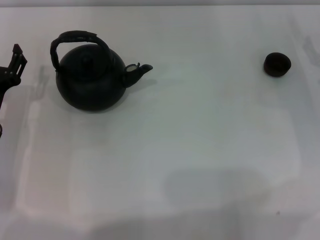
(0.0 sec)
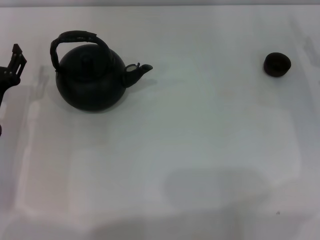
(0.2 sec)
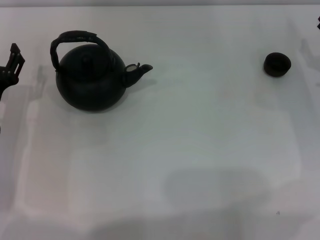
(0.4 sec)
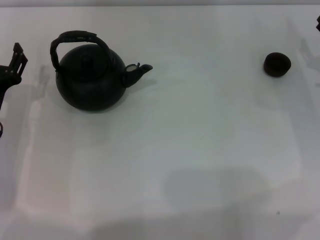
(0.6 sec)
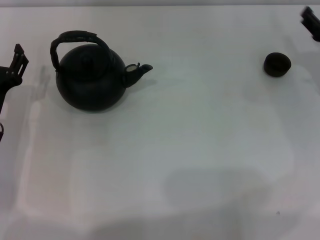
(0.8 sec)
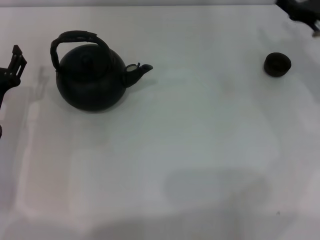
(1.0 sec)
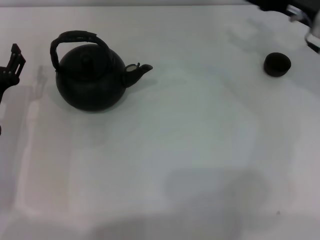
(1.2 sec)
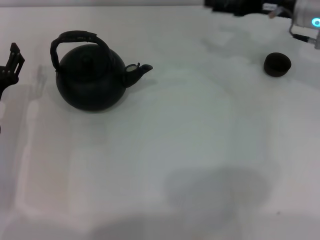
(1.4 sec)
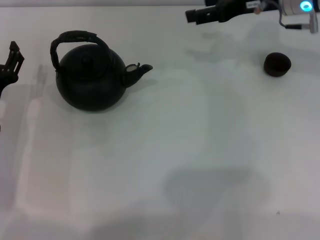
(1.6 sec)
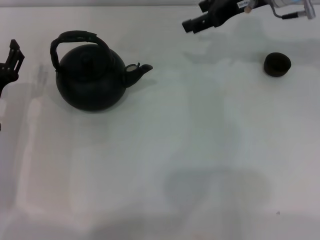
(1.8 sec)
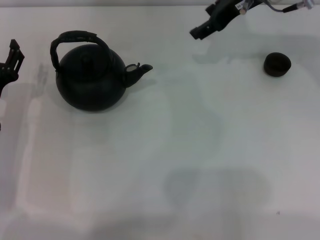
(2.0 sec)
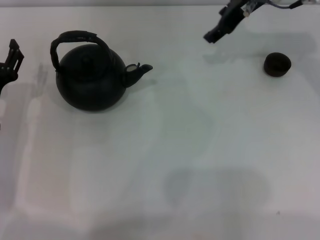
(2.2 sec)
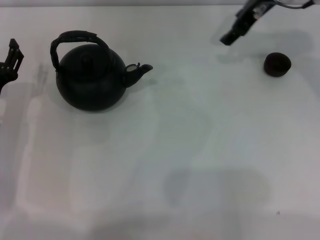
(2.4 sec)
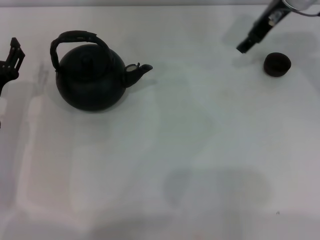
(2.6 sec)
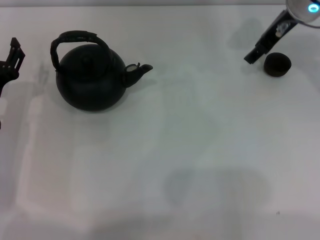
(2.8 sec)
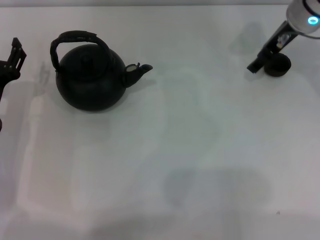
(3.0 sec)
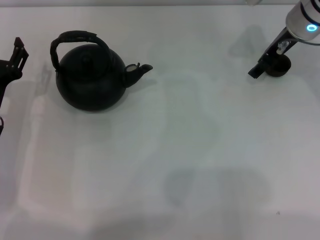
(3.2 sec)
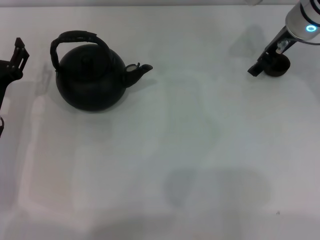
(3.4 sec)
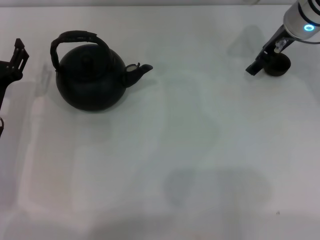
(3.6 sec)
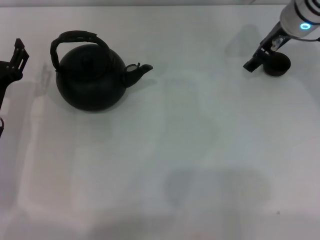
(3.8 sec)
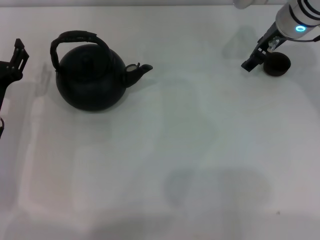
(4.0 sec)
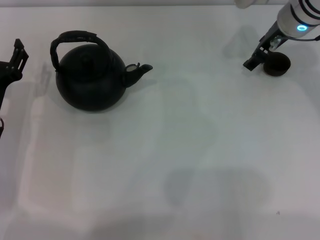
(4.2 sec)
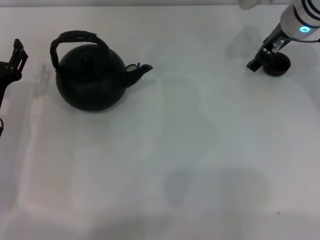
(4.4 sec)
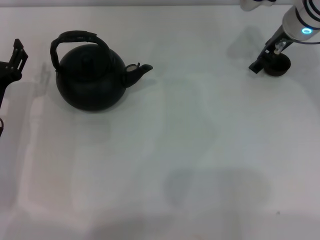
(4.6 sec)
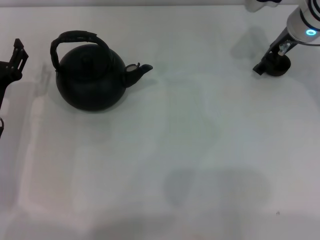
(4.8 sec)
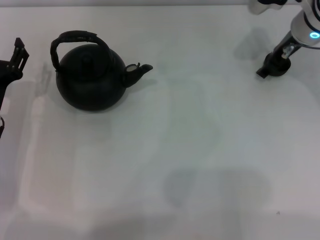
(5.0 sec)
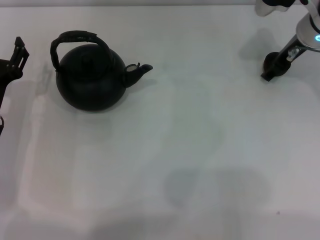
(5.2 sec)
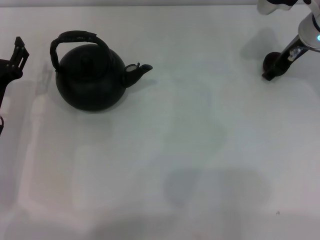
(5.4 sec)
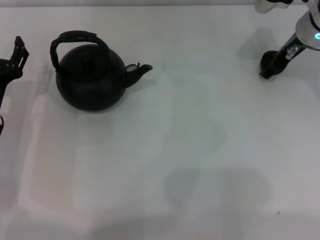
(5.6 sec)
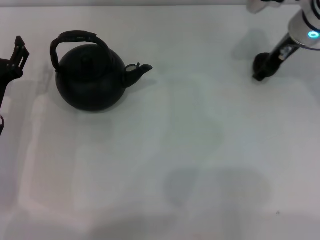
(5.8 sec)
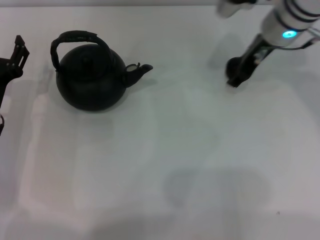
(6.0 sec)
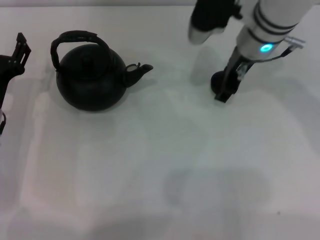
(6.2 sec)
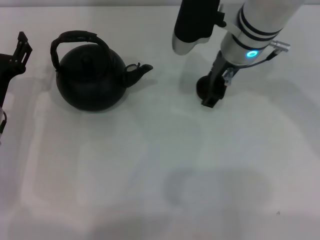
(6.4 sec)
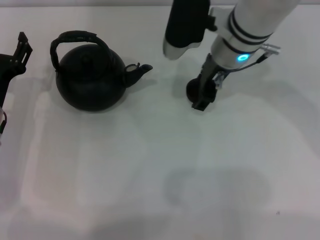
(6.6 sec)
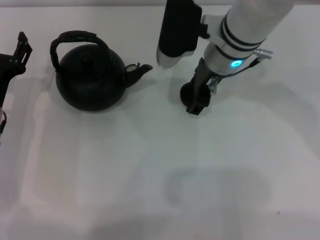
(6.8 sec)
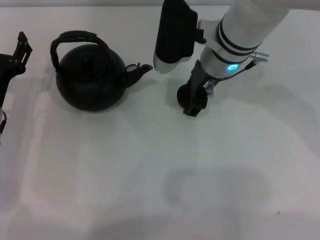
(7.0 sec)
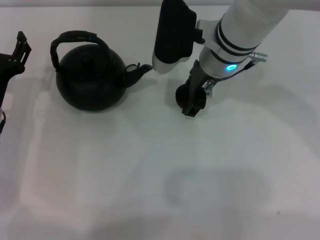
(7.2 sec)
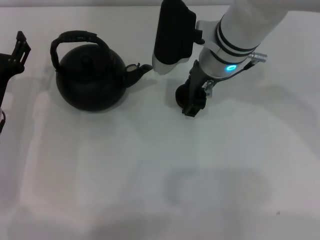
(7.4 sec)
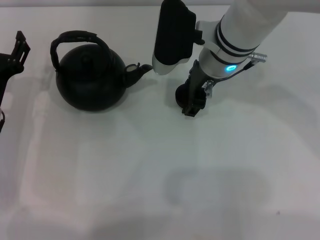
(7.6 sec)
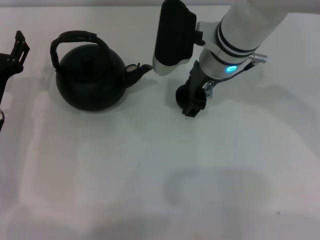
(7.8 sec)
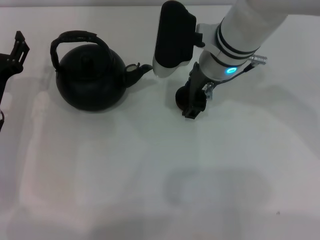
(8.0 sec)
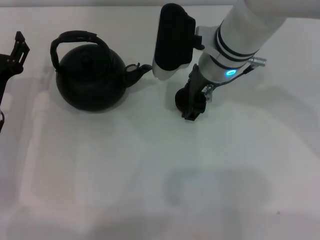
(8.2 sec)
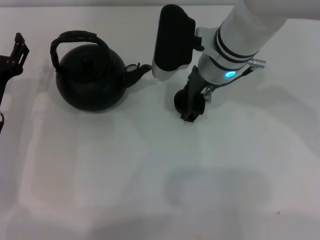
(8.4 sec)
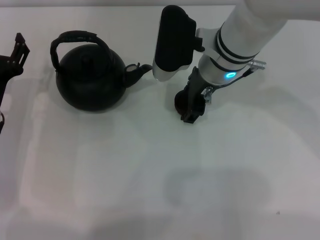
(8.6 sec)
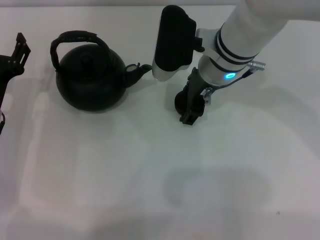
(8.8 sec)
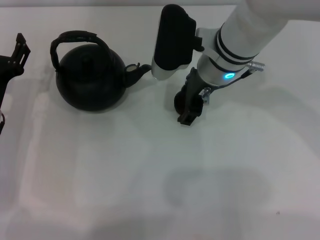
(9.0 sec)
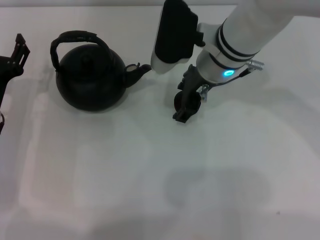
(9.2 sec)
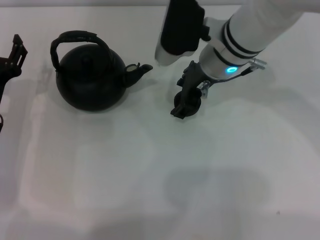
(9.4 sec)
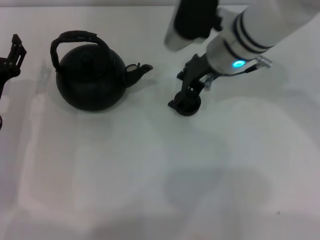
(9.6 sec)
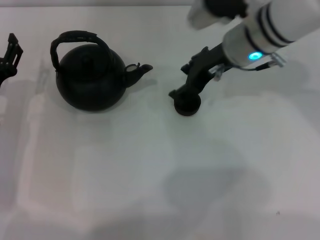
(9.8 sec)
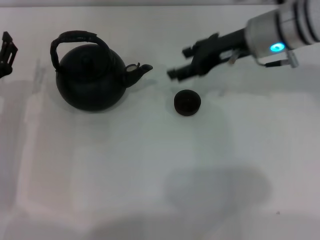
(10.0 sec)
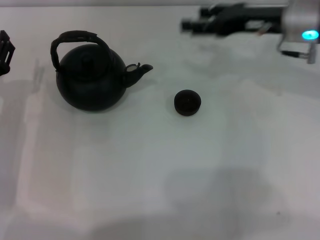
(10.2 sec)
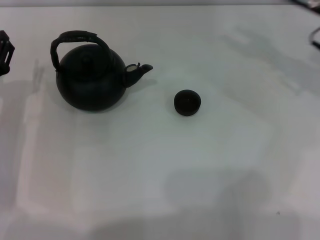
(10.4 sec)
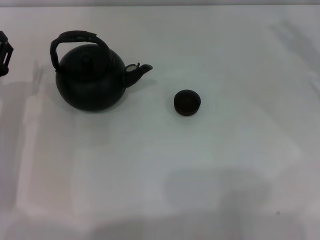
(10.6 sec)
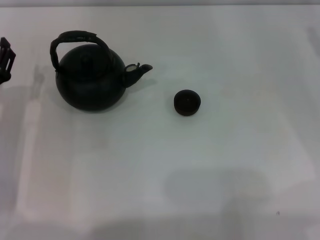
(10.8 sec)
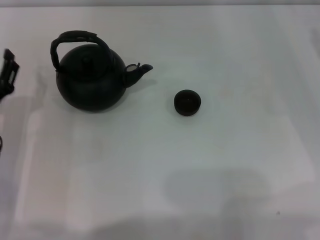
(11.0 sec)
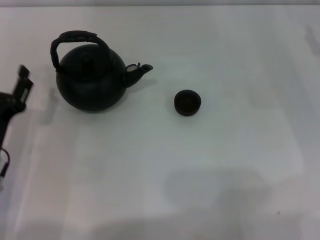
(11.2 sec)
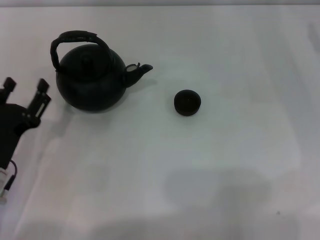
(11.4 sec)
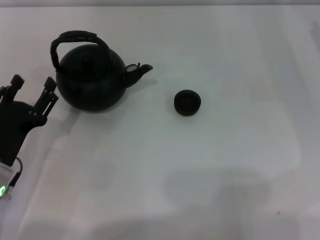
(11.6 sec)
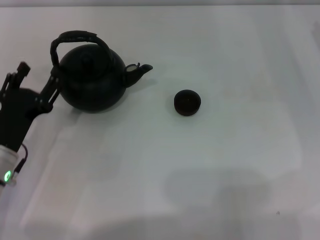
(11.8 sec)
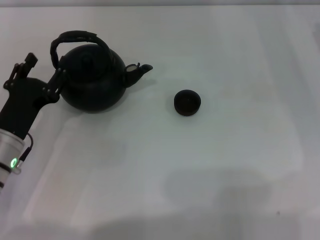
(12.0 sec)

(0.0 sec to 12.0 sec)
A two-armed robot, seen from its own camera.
Task of the whole recording: Grasp the handle of the teapot with one hand and pour tea into the teacup.
Step, 0.0 sec - 5.8 sec: Pick up the teacup with the right gripper.
Step, 6.0 sec - 10.0 sec: Place the teacup in the center of view with the right gripper.
0.0 sec - 1.6 sec: The right gripper moves upward, to the left and forward, roughly 20 cm.
3.0 sec - 4.4 sec: There are only small adjustments of the grippers.
4.4 sec - 6.0 sec: The right gripper changes place by some 5 cm.
6.0 sec - 7.6 sec: The right gripper shifts about 10 cm to the left.
7.6 sec - 9.0 sec: Both grippers stay put.
9.0 sec - 10.4 sec: The right gripper is displaced to the right by about 20 cm.

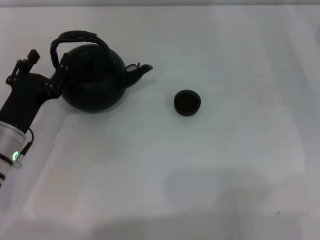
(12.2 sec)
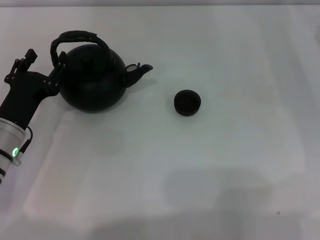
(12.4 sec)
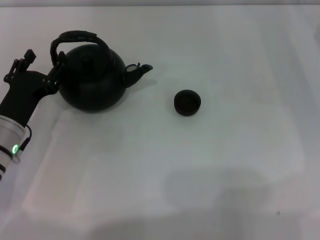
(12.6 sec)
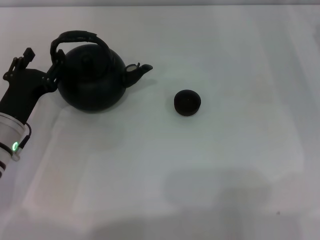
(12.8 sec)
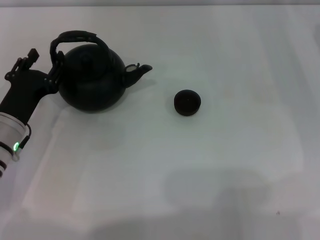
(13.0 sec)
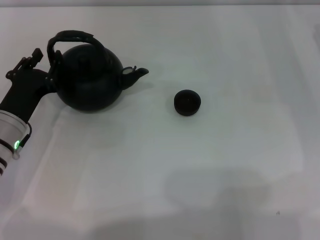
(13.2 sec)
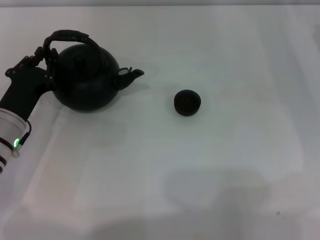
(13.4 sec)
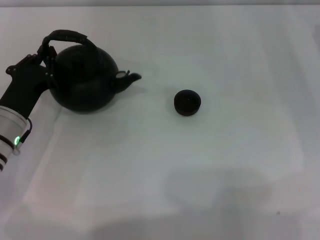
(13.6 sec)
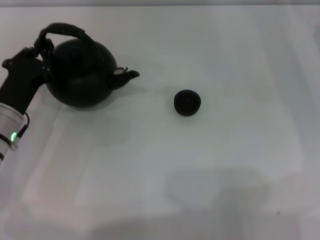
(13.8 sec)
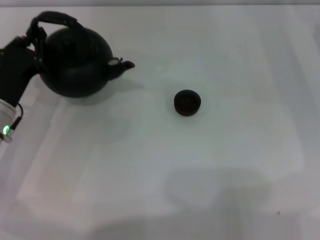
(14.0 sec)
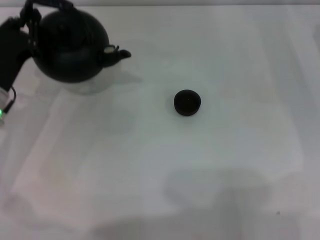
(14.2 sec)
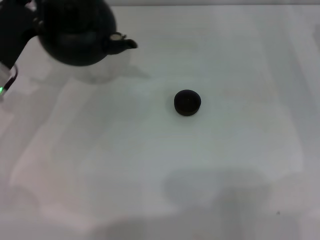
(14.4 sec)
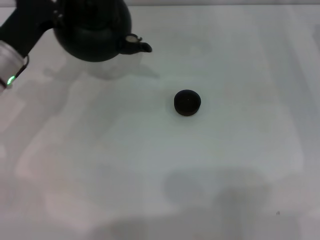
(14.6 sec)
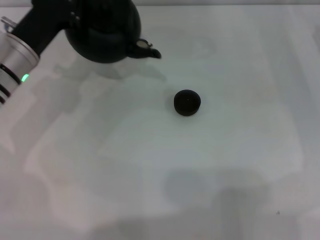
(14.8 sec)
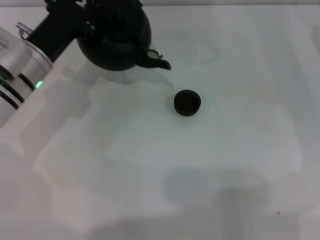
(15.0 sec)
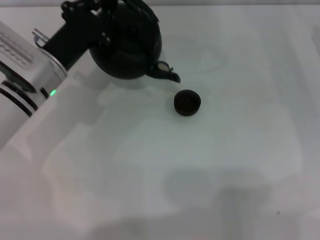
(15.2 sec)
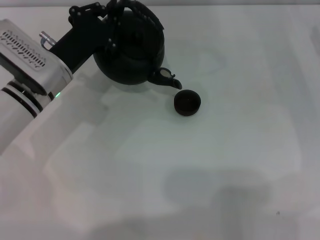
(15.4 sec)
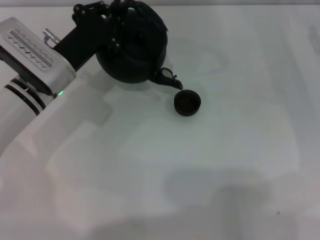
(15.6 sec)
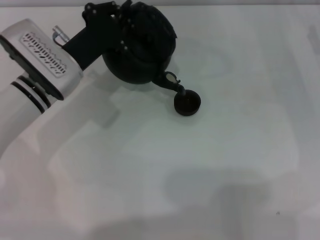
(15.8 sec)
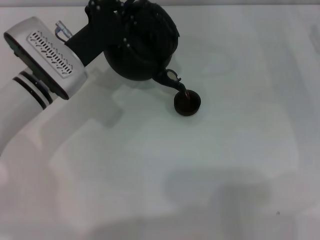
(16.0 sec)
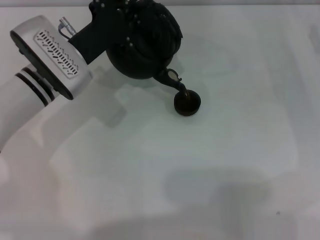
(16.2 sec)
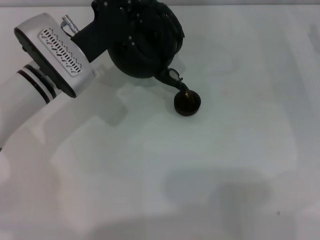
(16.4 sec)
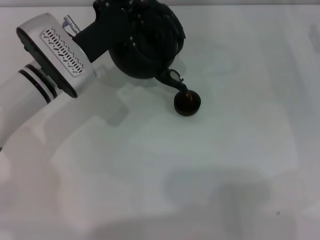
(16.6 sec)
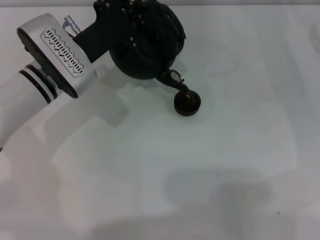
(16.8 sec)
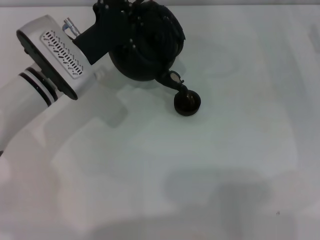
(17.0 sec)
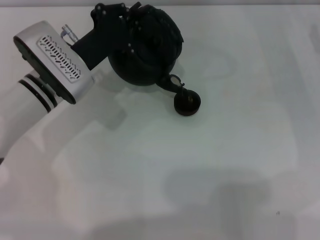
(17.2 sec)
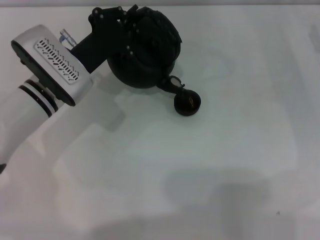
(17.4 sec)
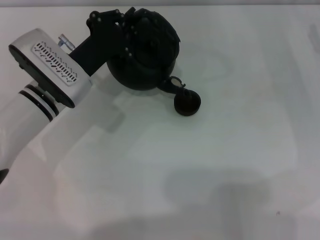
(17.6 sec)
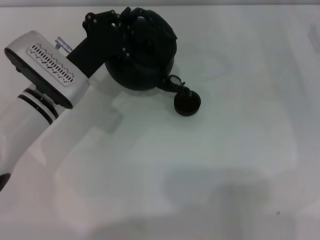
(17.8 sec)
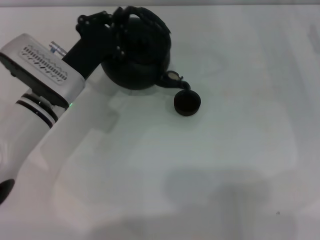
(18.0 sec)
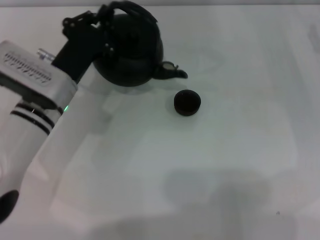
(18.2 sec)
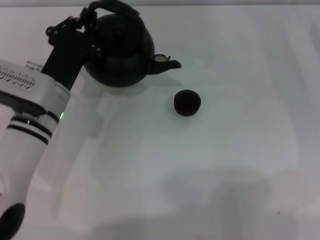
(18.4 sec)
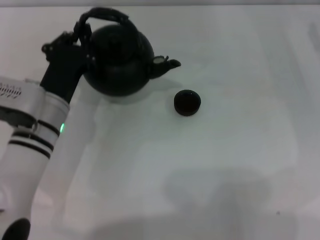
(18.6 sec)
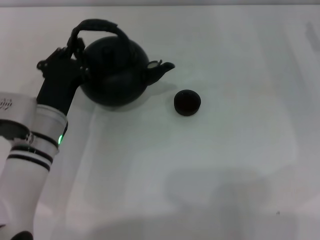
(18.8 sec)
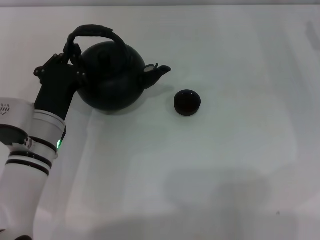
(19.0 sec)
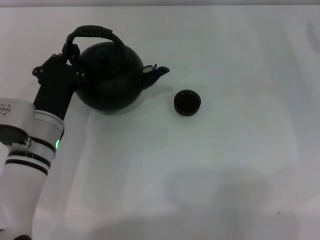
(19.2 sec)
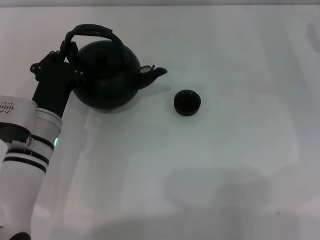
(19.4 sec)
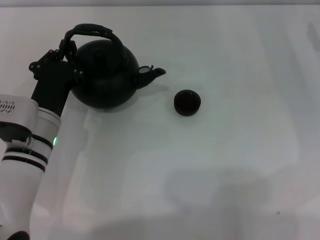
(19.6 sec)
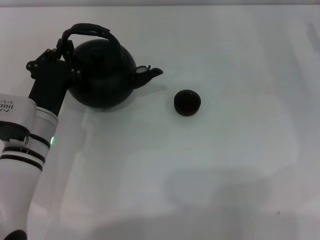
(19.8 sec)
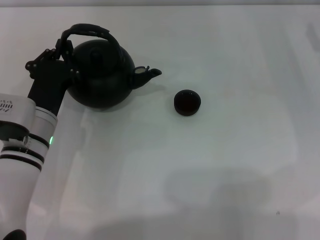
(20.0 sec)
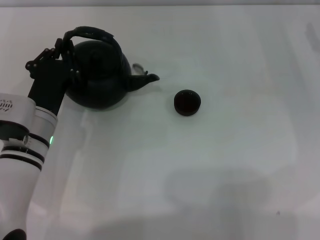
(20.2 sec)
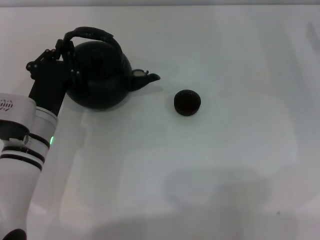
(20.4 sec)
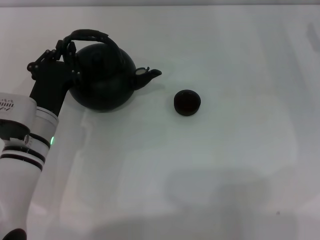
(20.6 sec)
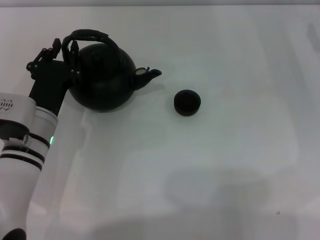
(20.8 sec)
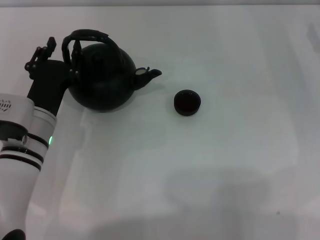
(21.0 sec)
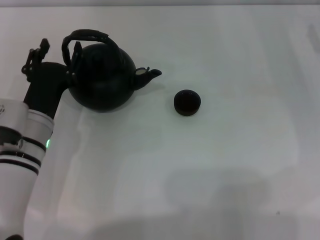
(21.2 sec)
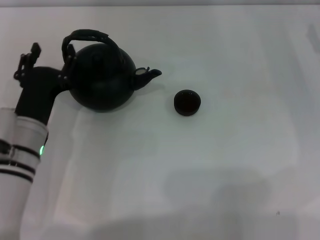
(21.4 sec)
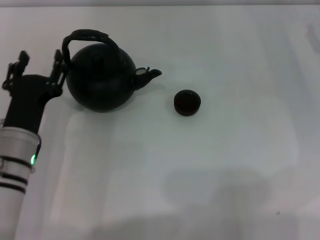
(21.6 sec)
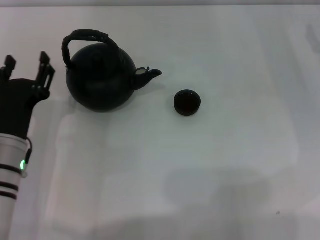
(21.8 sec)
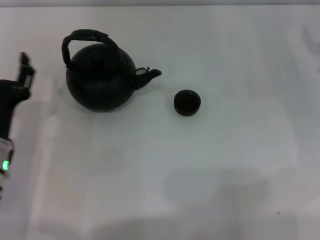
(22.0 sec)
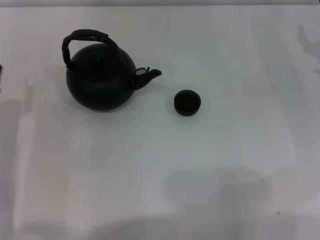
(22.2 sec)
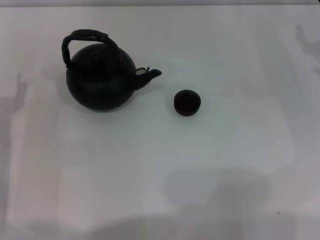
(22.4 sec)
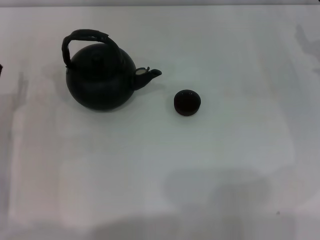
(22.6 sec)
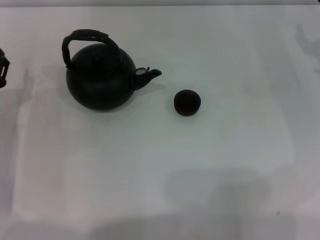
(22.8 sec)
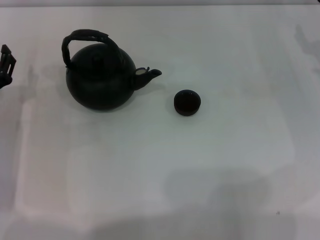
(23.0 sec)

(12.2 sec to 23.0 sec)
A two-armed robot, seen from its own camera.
Task of the whole recording: Grasp the handle of the teapot with one hand and pour tea into the teacup.
Step, 12.2 sec - 14.2 sec: Pick up the teapot with the left gripper.
Step, 14.4 sec - 18.2 sec: Pour tea into the teacup with the left gripper.
Step, 18.4 sec - 21.2 sec: Put down the teapot with the left gripper.
12.2 sec - 13.8 sec: The left gripper closes its fingers.
13.8 sec - 15.2 sec: The left gripper shifts about 10 cm forward and to the right.
16.8 sec - 18.4 sec: The left gripper is displaced backward by some 5 cm.
18.4 sec - 20.0 sec: The grippers move only a little.
20.0 sec - 21.4 sec: The left gripper opens its fingers.
21.4 sec - 23.0 sec: The left gripper heads to the left, covering about 10 cm.
